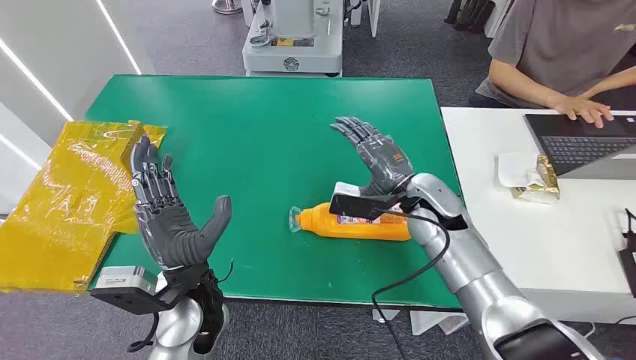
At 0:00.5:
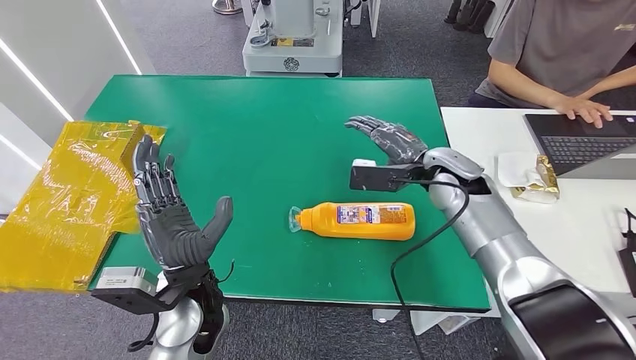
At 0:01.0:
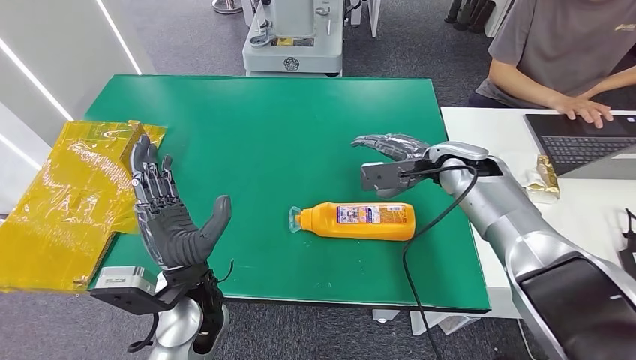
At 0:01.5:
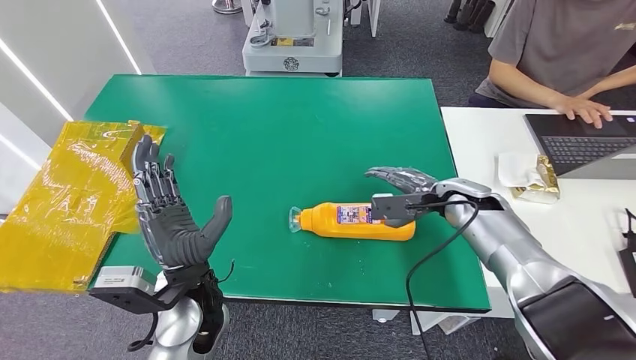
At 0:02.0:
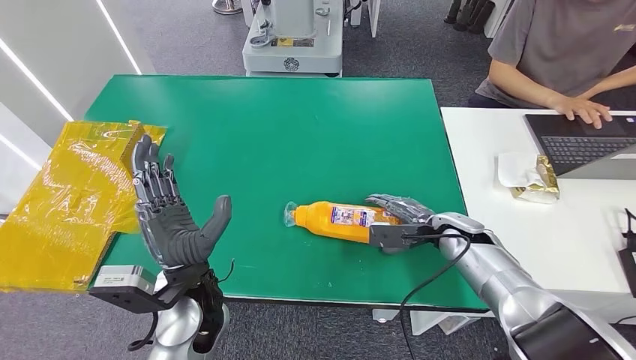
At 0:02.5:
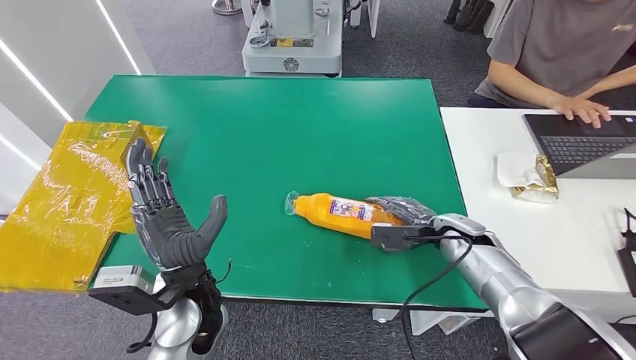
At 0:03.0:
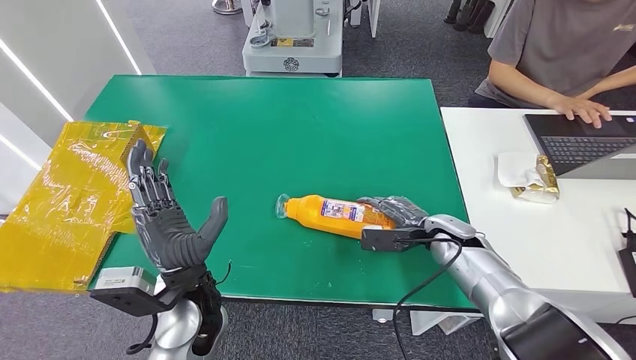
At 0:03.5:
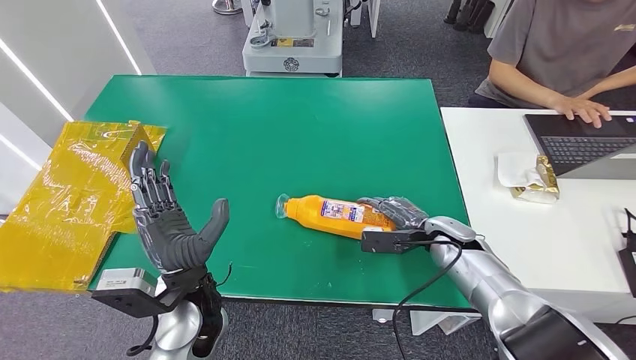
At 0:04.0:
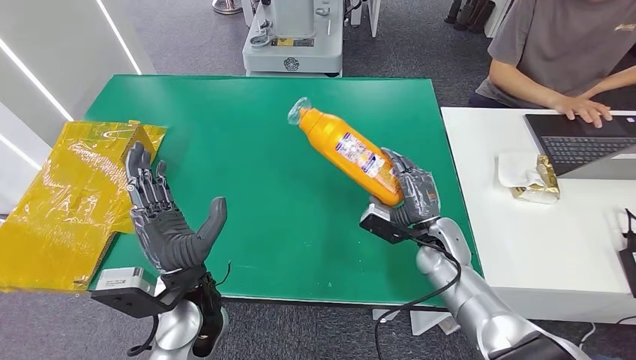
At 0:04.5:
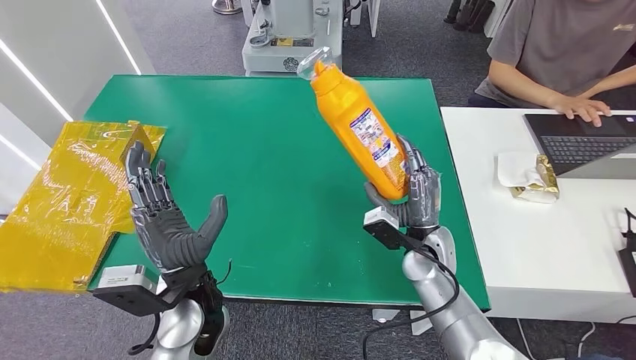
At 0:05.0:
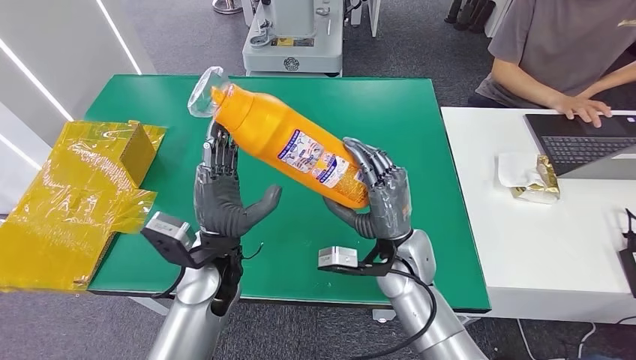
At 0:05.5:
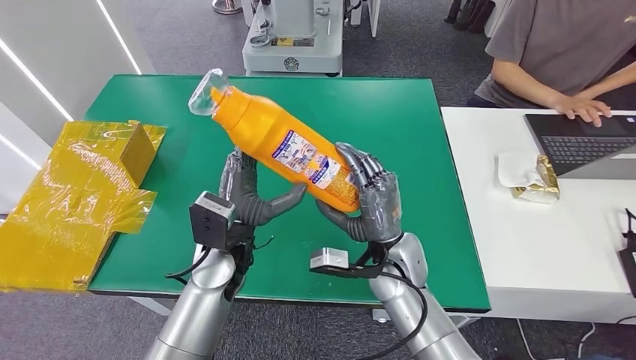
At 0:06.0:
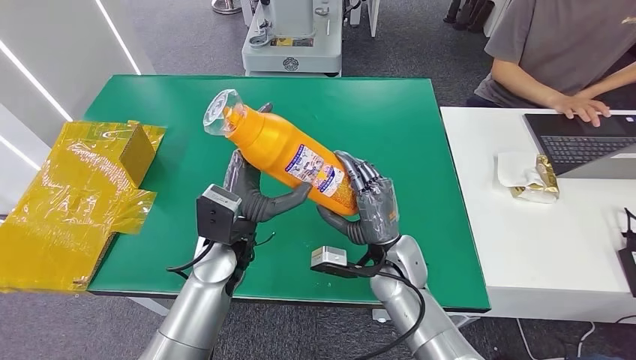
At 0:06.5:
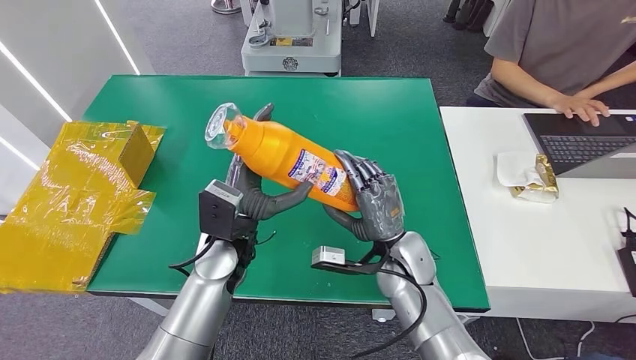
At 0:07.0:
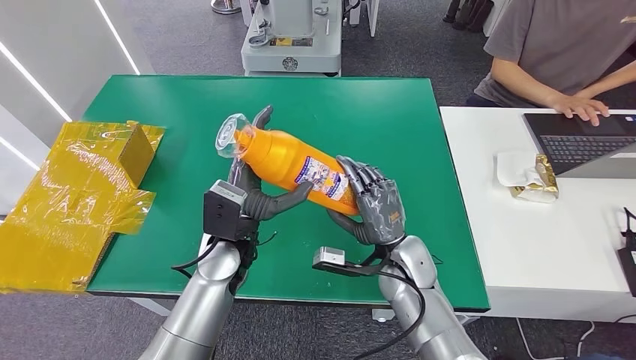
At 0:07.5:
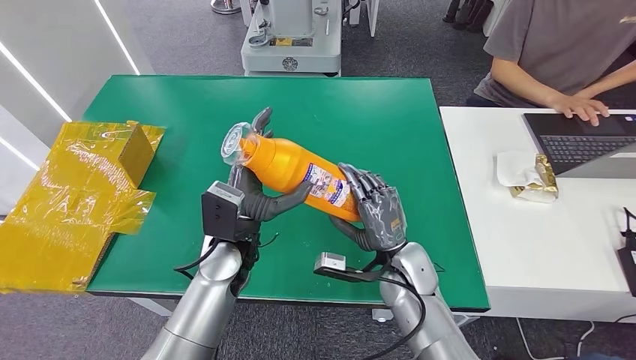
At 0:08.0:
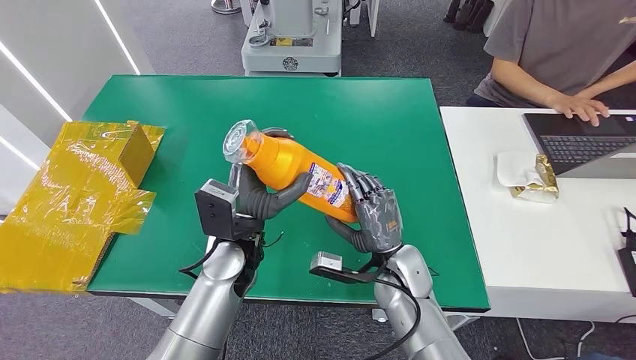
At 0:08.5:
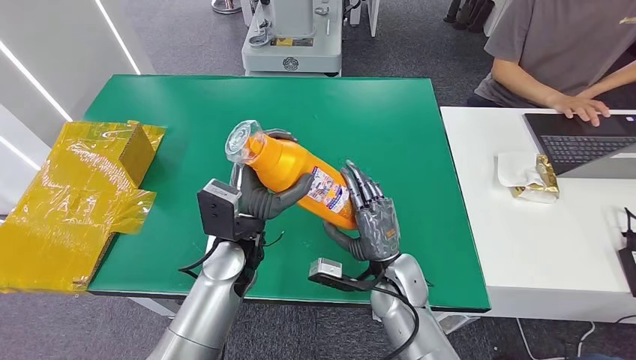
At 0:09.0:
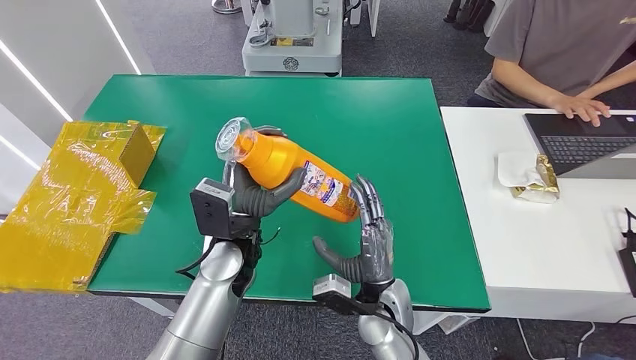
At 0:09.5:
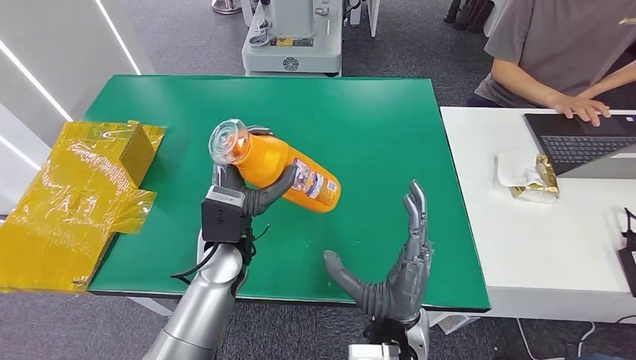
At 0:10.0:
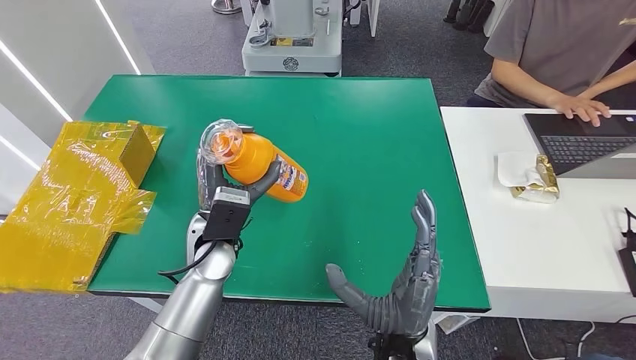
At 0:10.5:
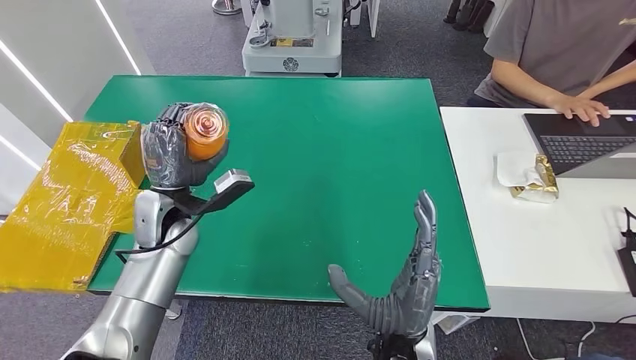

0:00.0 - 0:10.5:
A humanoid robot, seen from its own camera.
Step, 0:00.0 - 0:04.5: Pick up the bottle from the table.
0:02.0 - 0:04.0: The right hand is displaced to the left by roughly 5 cm.
0:06.5 - 0:08.5: The hands move only a little.
0:08.5 - 0:10.5: The right hand travels backward and upward by some 15 cm. Meanwhile the left hand moves to the left and forward, approximately 15 cm.

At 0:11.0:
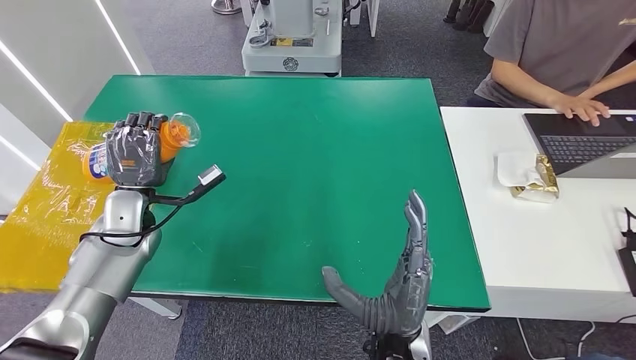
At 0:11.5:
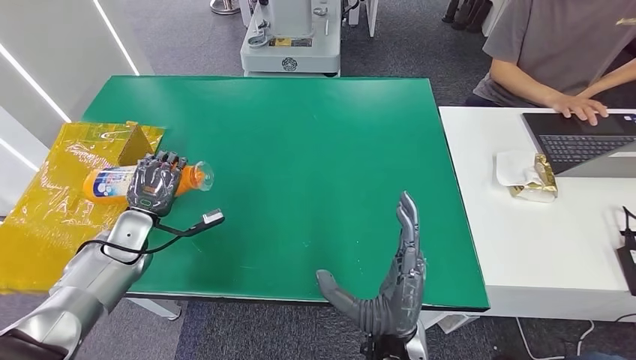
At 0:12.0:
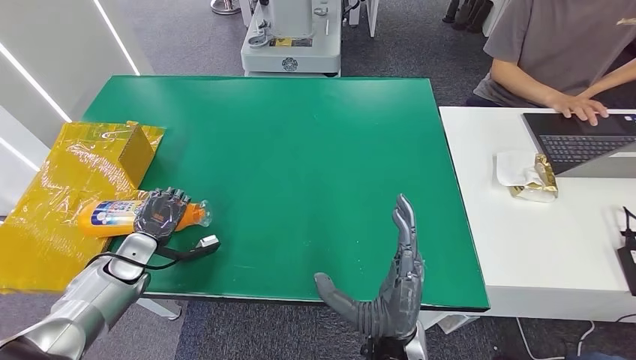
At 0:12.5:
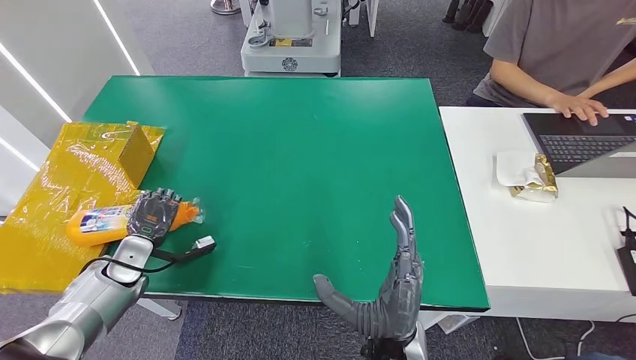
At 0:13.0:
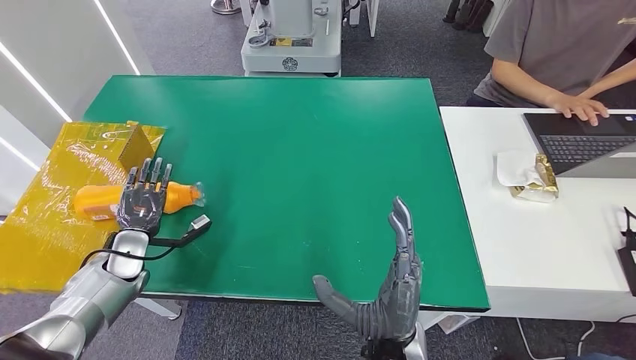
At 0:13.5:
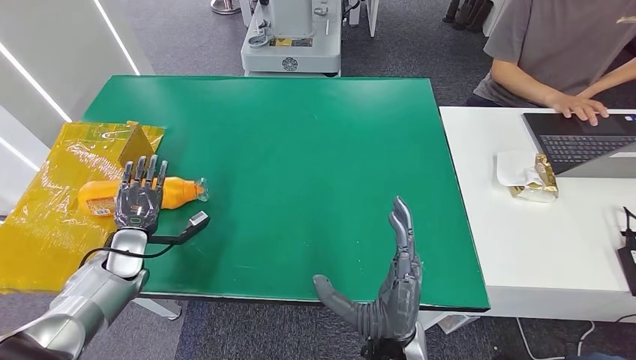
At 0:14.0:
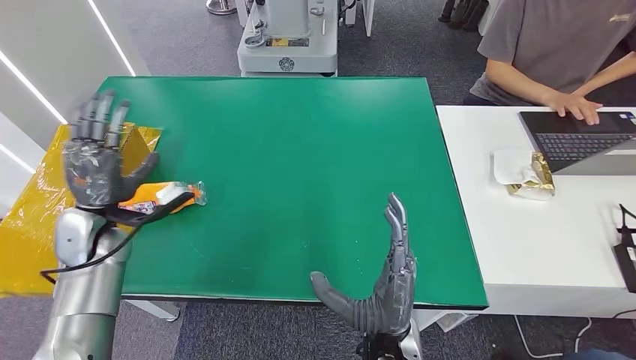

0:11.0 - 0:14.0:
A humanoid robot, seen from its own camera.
Step, 0:11.0 - 0:14.0: Turn the bottle to the front side.
0:11.0 - 0:12.5: The left hand moves downward, to the left and backward, roughly 15 cm.
0:12.5 - 0:14.0: The left hand goes approximately 10 cm upward.
